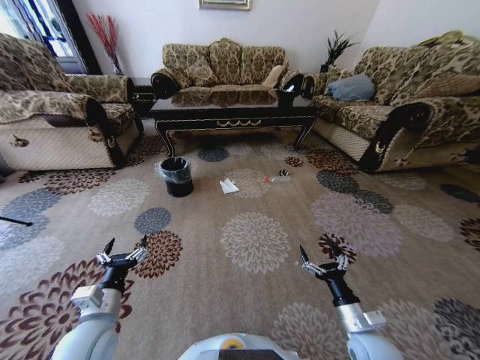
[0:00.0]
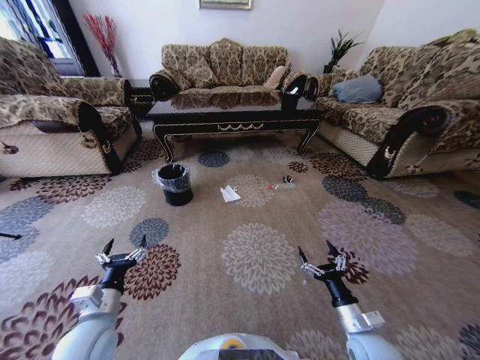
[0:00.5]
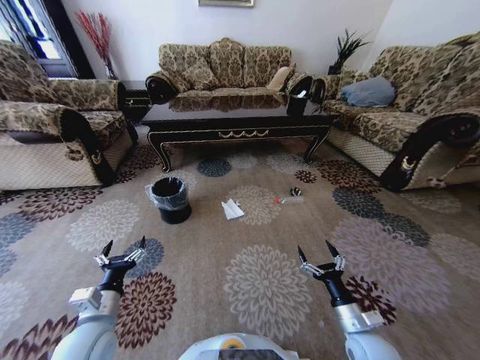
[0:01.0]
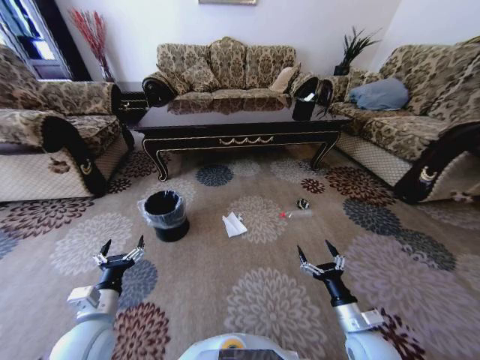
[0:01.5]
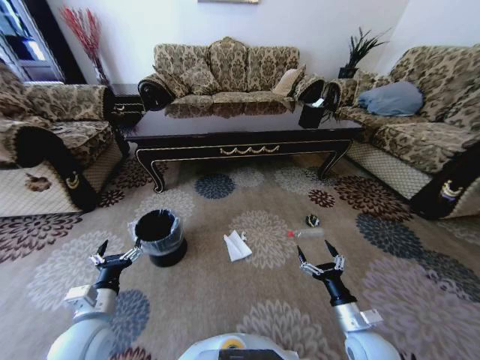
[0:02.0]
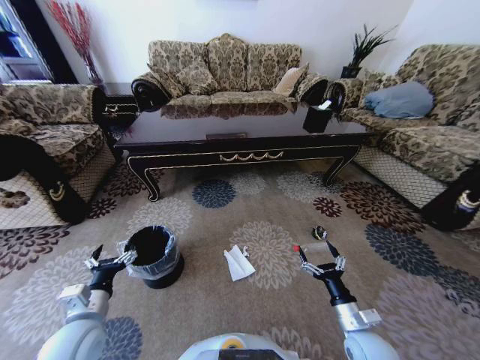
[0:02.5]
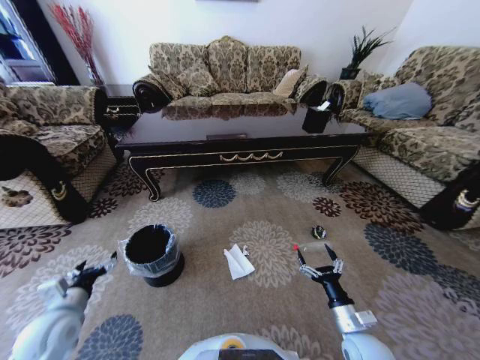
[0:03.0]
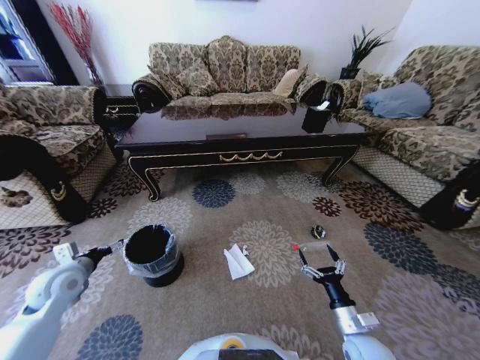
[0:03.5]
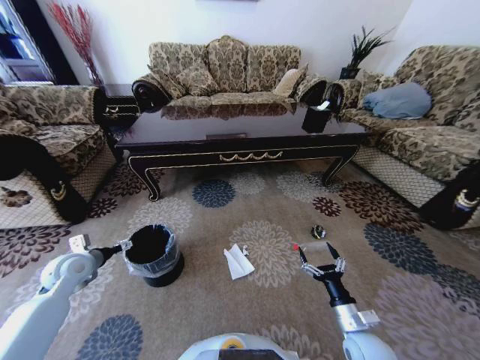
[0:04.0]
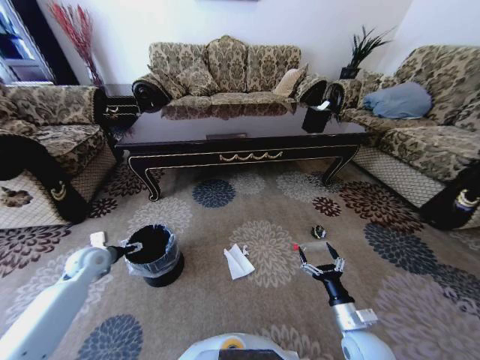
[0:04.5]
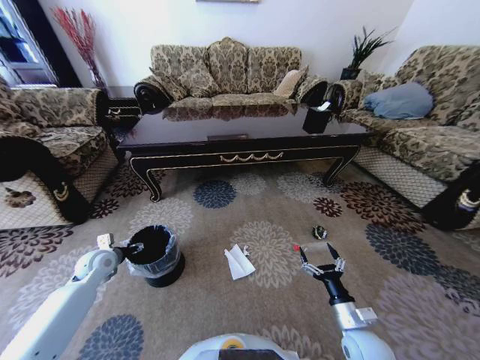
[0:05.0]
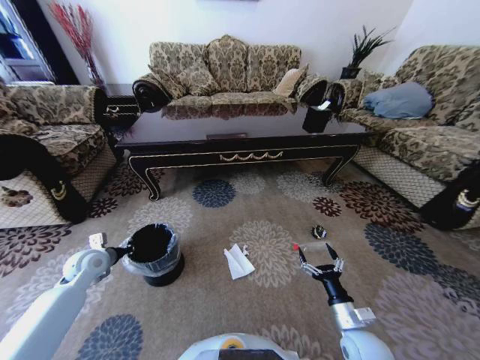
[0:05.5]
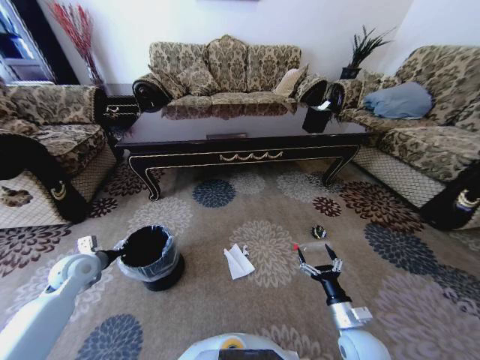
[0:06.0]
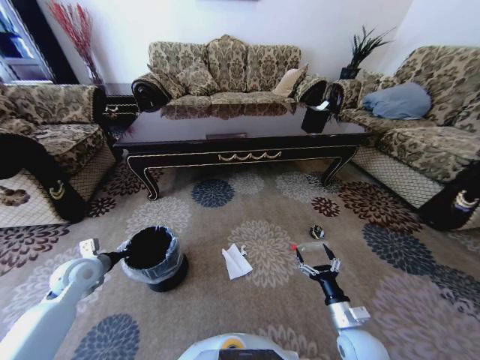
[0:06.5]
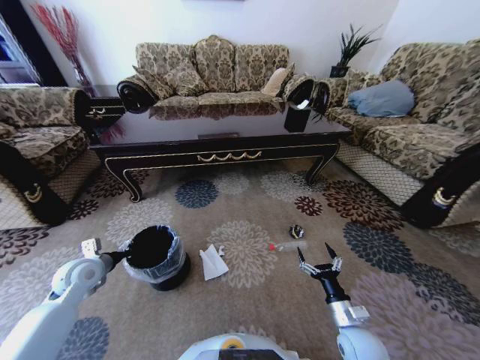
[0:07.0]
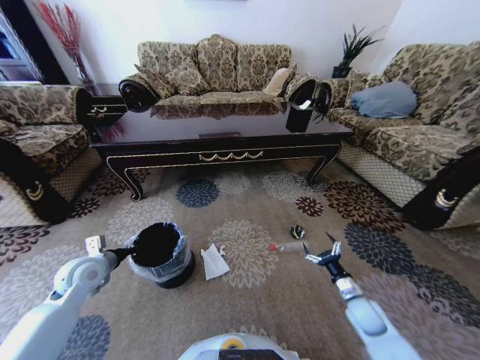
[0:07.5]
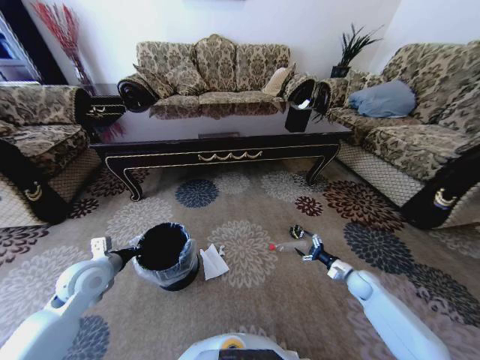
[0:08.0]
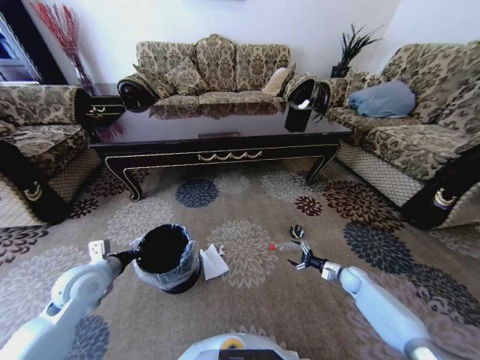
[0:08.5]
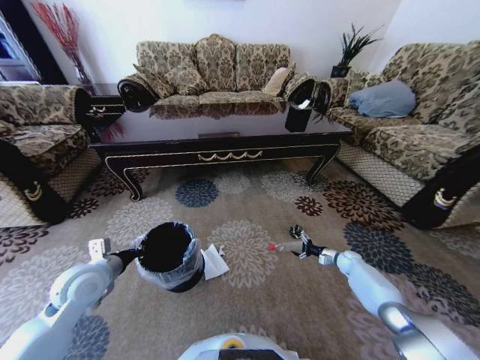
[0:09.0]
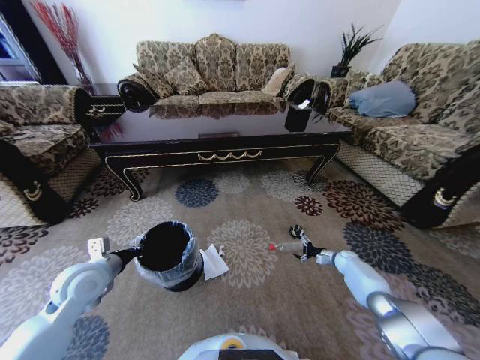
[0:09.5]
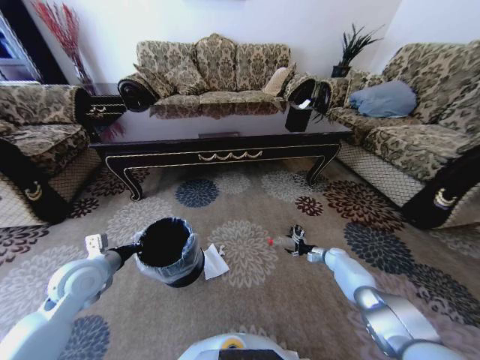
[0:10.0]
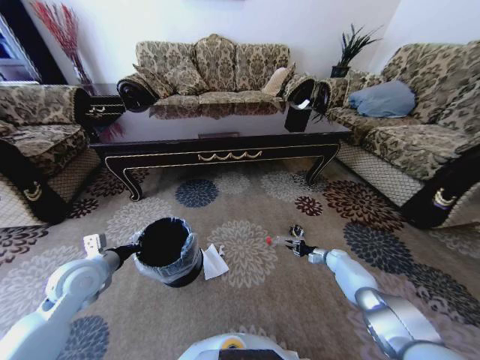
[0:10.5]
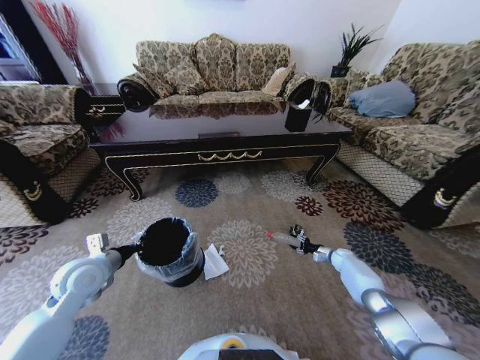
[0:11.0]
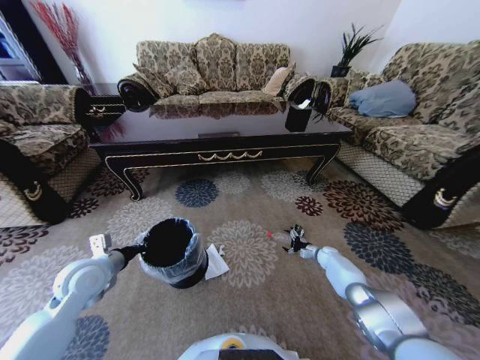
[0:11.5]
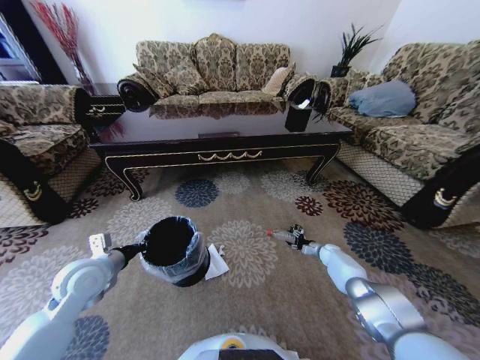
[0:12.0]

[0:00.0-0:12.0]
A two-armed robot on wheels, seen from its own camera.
Task of the whole recording: Move to the front of the table and pick up the trash from the floor, then place it into the trash bin.
0:02.0 to 0:04.0: The left gripper shifts approximately 20 cm forward and to the left.
0:04.0 to 0:06.0: The left gripper closes up.
0:06.0 to 0:08.0: The left gripper heads to the right, covering some 10 cm, while the right gripper heads forward and to the right, covering approximately 25 cm.
0:08.0 to 0:10.0: The right gripper heads forward and downward, covering some 15 cm.
0:10.0 to 0:12.0: The right gripper closes, then opens again.

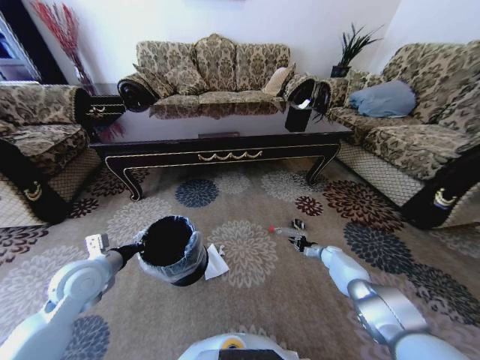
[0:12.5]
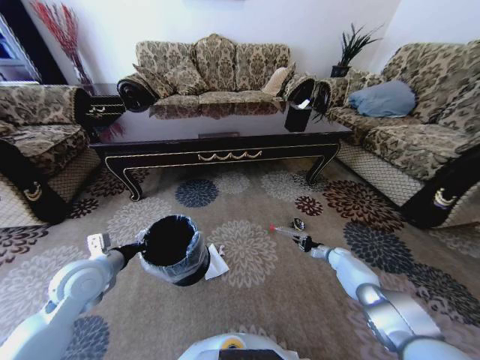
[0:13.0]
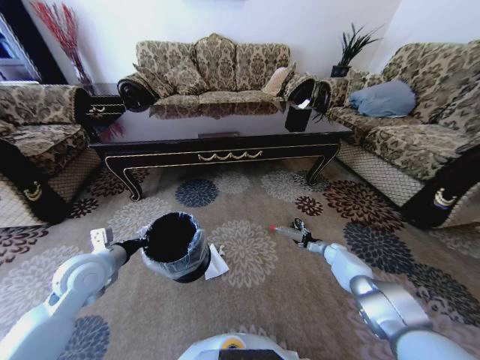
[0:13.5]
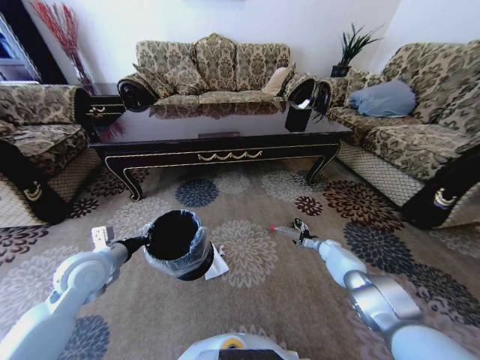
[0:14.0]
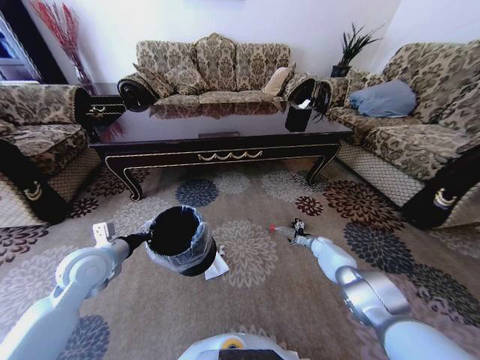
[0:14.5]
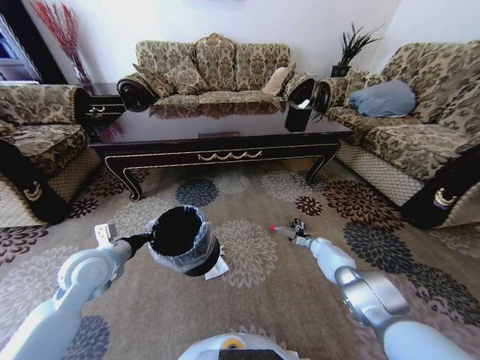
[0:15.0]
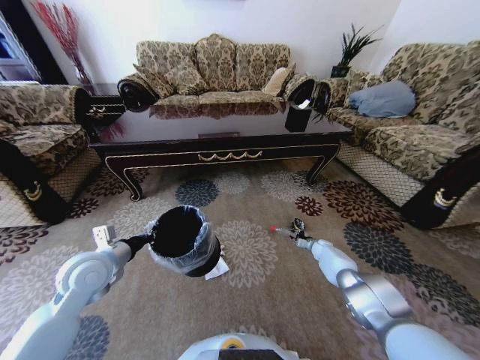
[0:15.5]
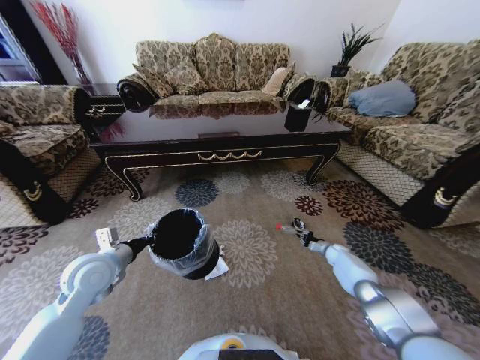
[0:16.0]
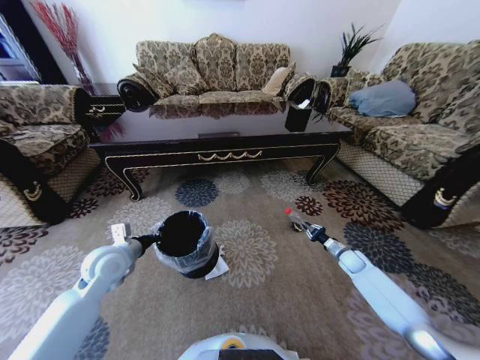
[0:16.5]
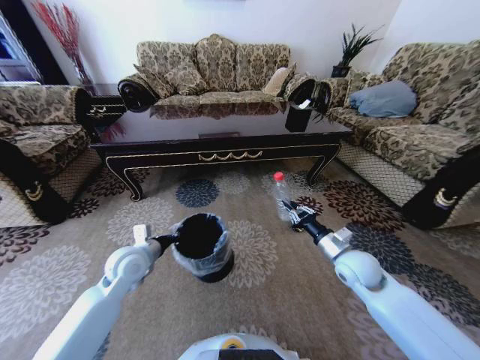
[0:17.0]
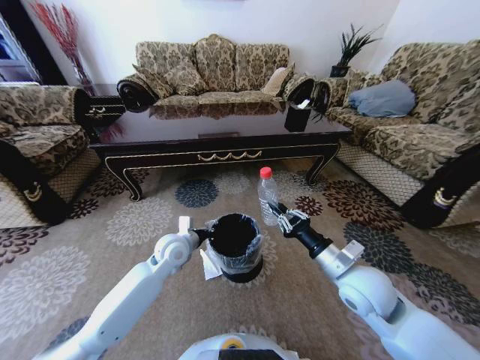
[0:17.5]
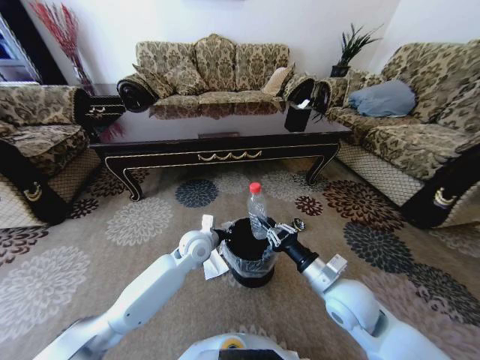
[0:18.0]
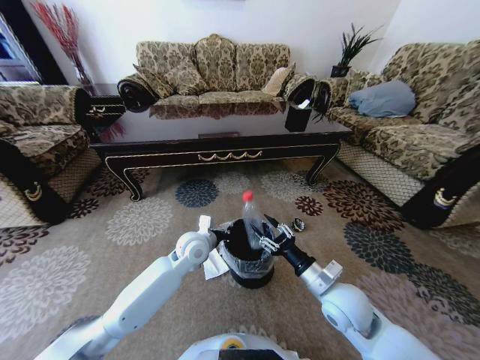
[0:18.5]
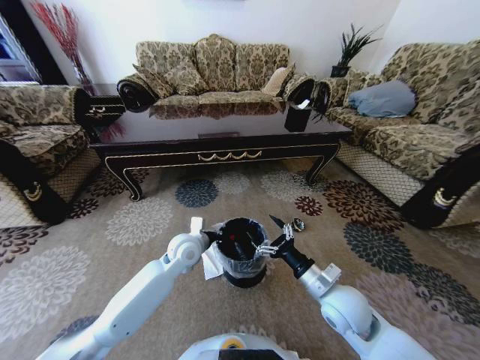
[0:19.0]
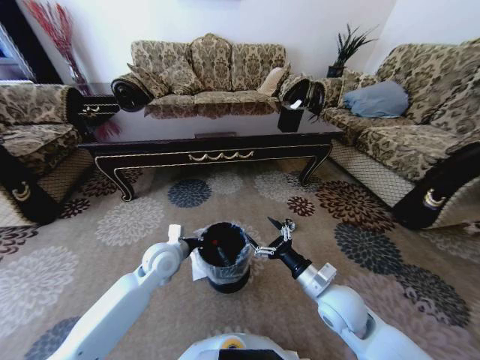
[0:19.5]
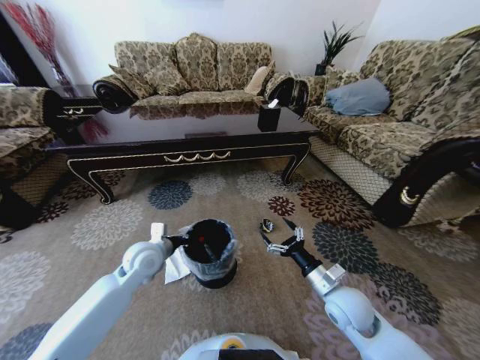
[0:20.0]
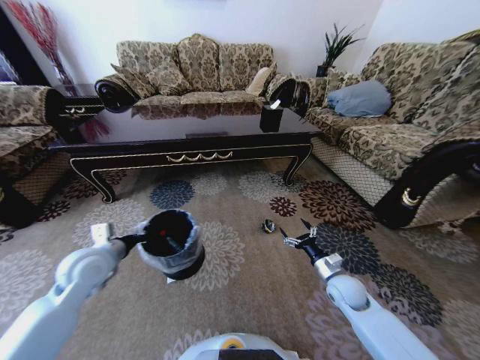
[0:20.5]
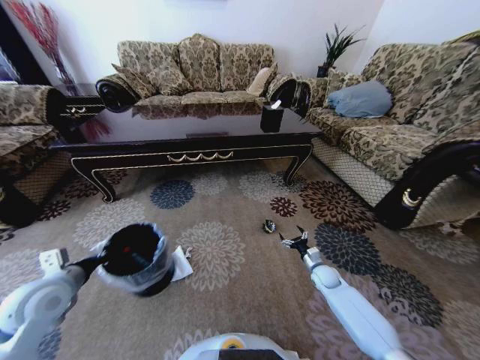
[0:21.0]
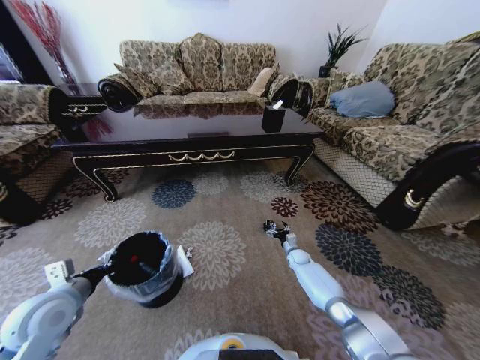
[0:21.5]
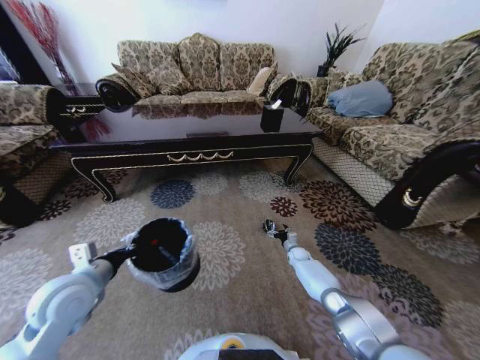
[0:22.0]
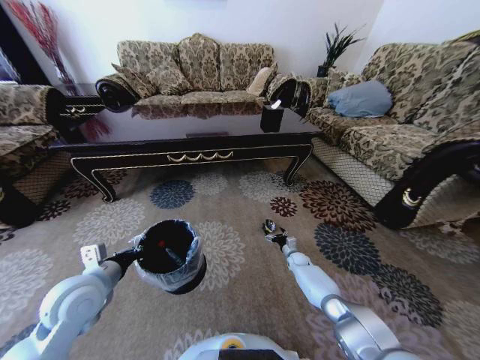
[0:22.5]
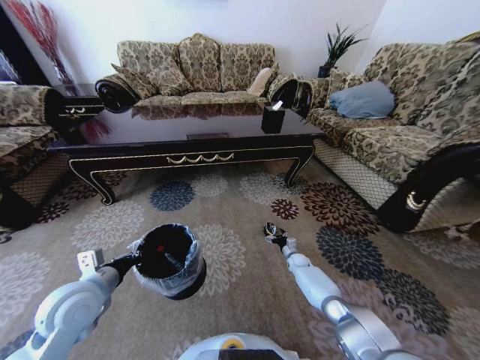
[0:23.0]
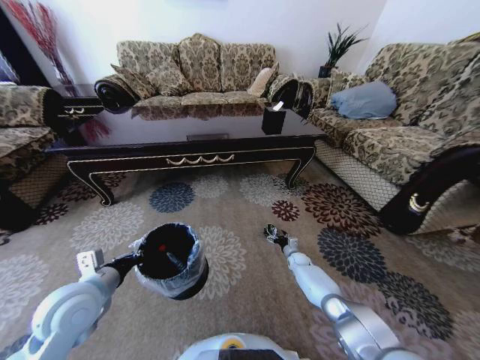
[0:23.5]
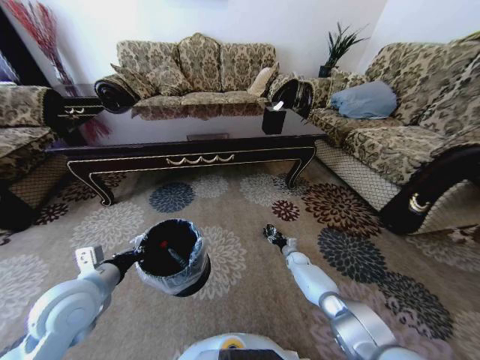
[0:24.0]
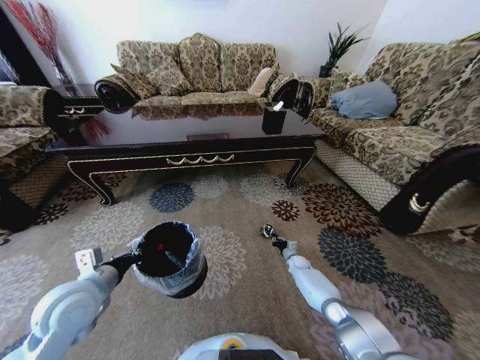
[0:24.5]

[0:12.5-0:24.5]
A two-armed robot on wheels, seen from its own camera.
Task of the whole recording: Move to the front of the table and pick up the trash from the floor, then place it into the trash bin.
0:12.5 to 0:14.5: The right gripper shifts by some 5 cm, and opens its fingers.
0:14.5 to 0:16.5: The right gripper is displaced backward and upward by approximately 10 cm, and closes.
0:16.5 to 0:18.5: The left gripper is displaced to the right by approximately 20 cm; the right gripper shifts approximately 35 cm to the left, backward and upward, and opens up.
0:18.5 to 0:20.5: The left gripper is displaced to the left by approximately 25 cm. The right gripper travels downward, to the right and forward by approximately 15 cm, and opens its fingers.
0:20.5 to 0:22.5: The left gripper is displaced backward by roughly 5 cm. The right gripper is displaced forward and downward by some 25 cm.
0:22.5 to 0:24.5: The right gripper closes its fingers.

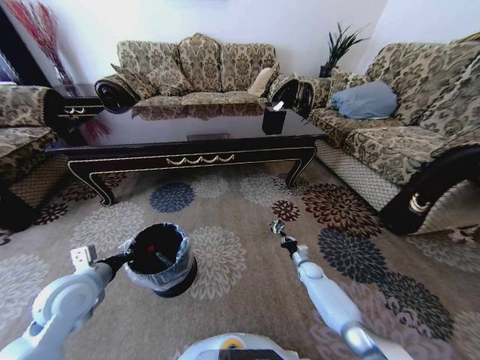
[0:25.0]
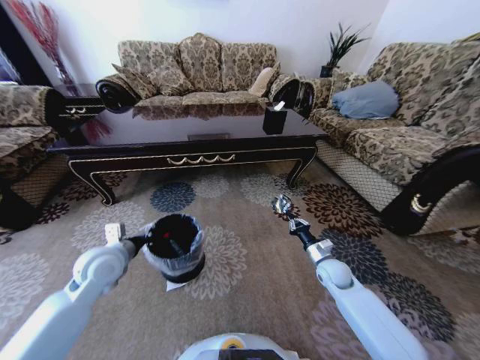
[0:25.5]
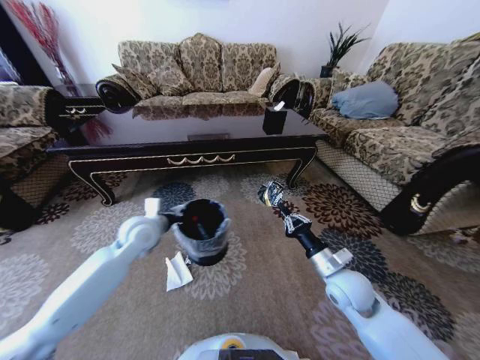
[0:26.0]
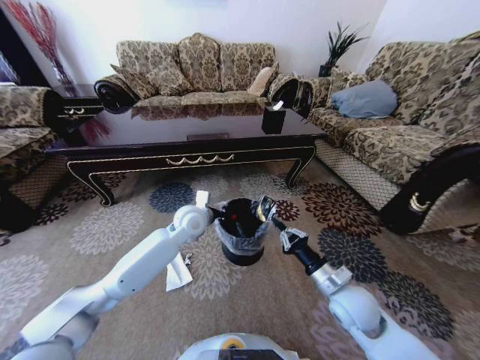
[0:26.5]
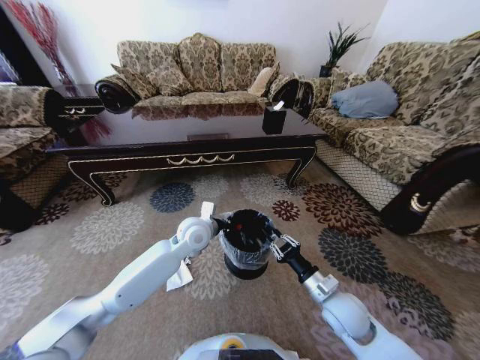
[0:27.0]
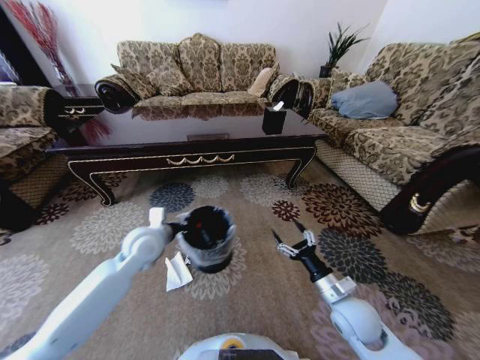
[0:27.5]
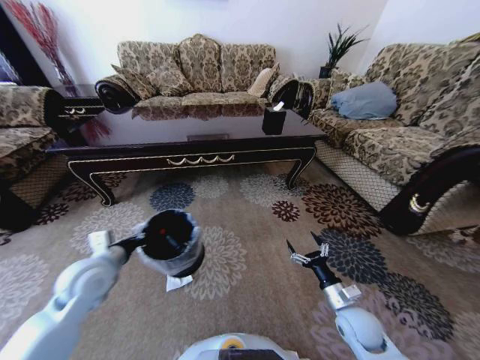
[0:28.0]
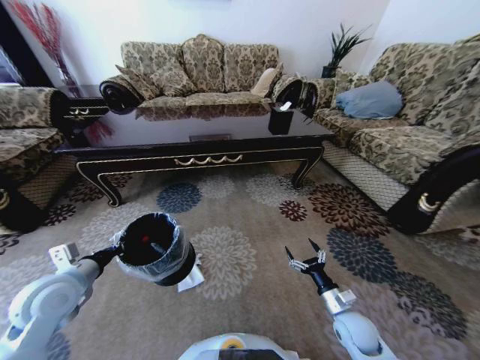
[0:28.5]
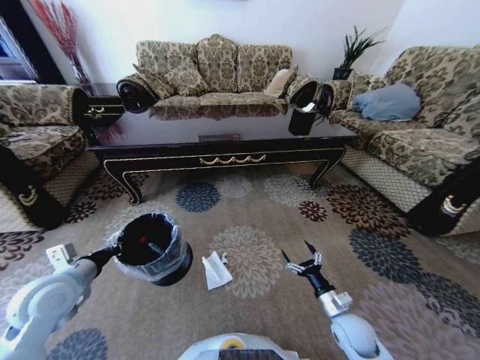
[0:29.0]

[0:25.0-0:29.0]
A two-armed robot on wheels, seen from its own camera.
Task of the whole recording: Move to the front of the table and pick up the trash from the floor, then place it into the trash bin.
0:25.0 to 0:27.0: The right gripper shifts about 30 cm upward and backward. Meanwhile the left gripper shifts approximately 30 cm to the right and forward.
0:27.0 to 0:29.0: The left gripper heads to the left and backward, covering about 30 cm. The right gripper is displaced downward and to the right by about 10 cm, and opens its fingers.
